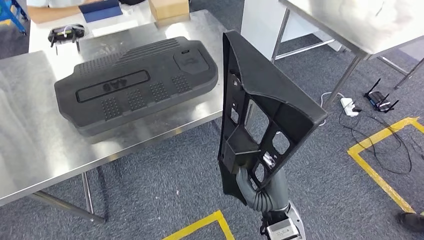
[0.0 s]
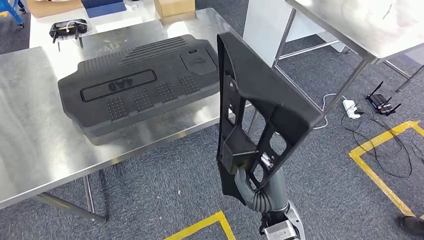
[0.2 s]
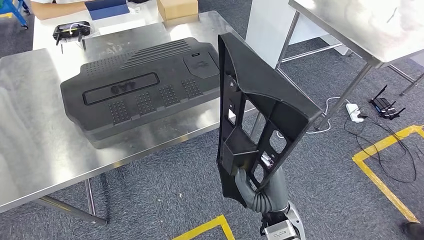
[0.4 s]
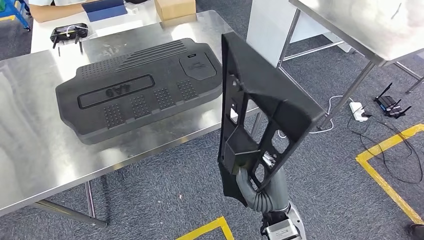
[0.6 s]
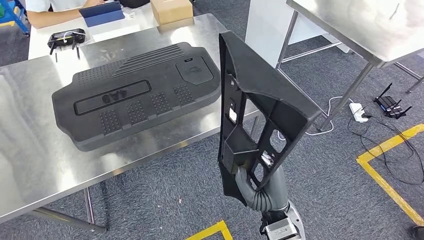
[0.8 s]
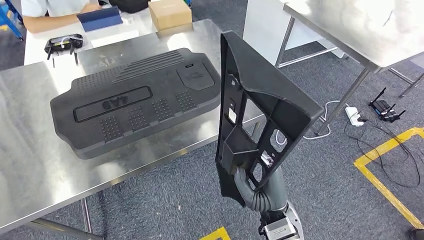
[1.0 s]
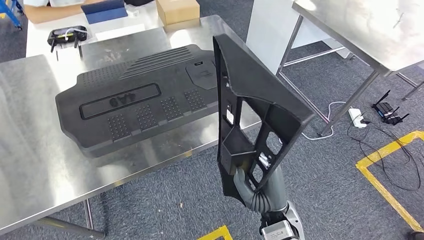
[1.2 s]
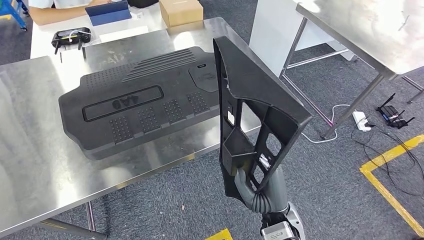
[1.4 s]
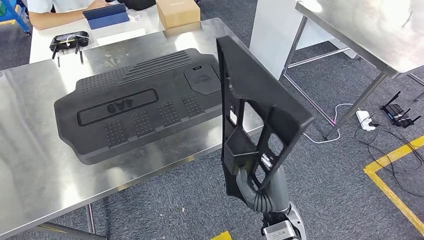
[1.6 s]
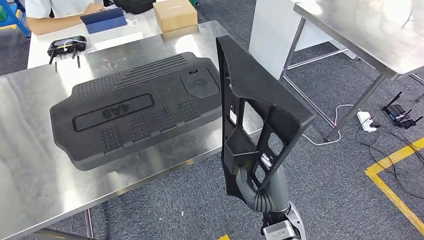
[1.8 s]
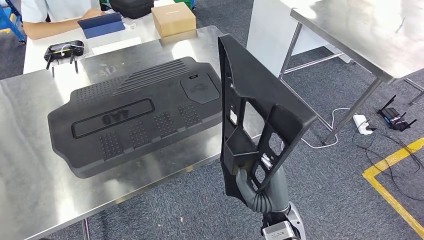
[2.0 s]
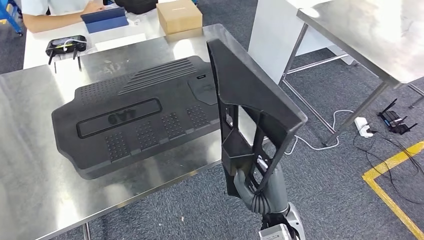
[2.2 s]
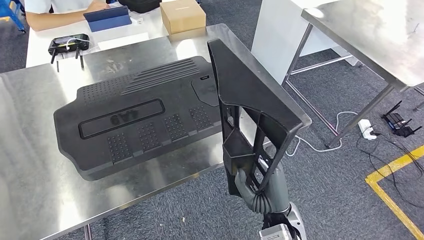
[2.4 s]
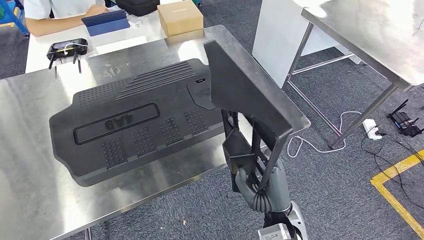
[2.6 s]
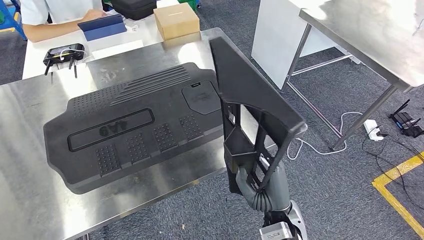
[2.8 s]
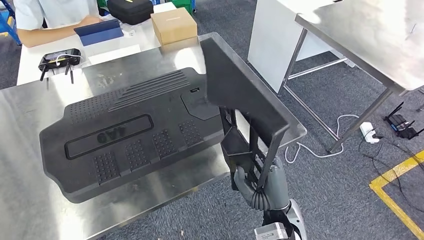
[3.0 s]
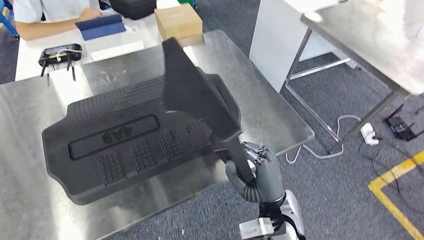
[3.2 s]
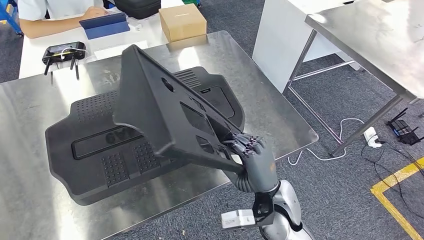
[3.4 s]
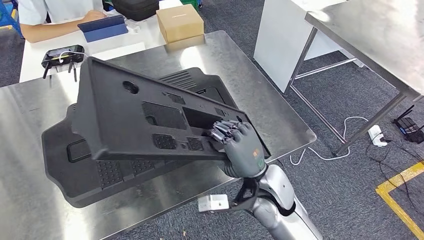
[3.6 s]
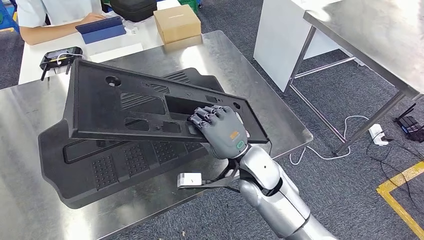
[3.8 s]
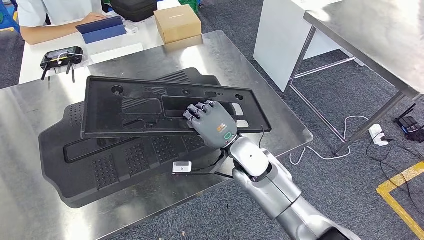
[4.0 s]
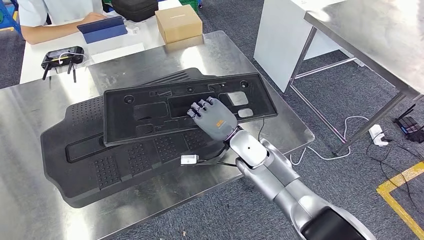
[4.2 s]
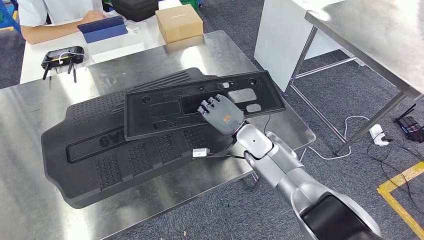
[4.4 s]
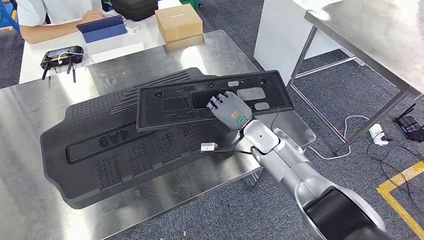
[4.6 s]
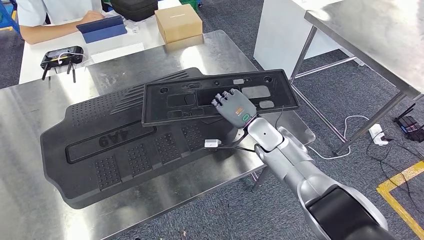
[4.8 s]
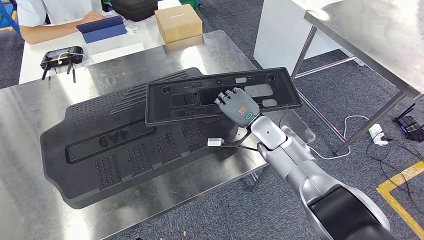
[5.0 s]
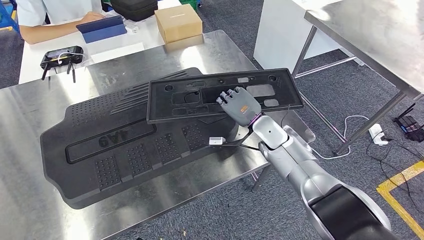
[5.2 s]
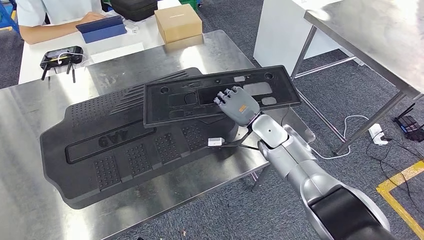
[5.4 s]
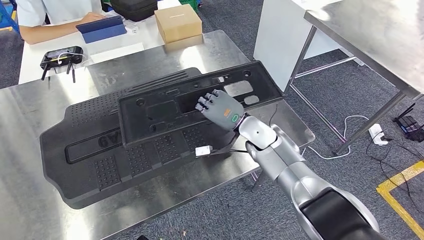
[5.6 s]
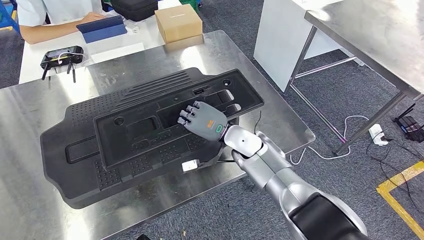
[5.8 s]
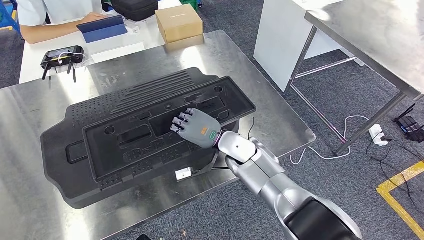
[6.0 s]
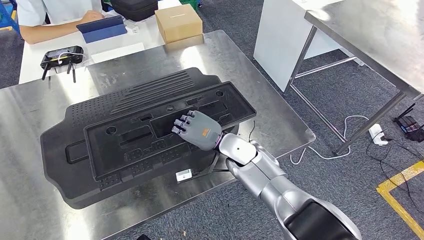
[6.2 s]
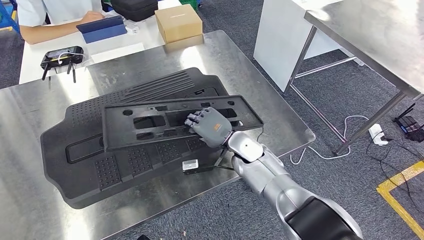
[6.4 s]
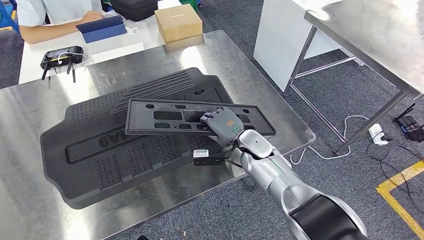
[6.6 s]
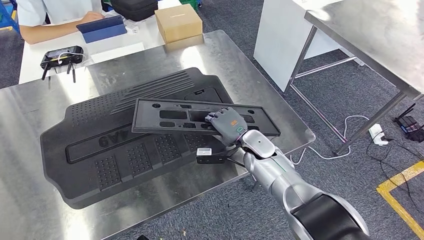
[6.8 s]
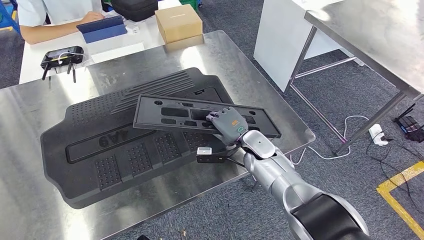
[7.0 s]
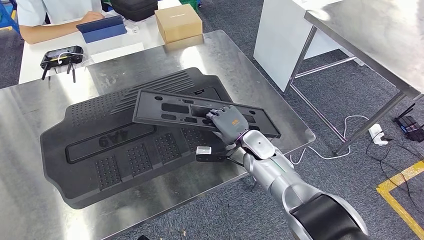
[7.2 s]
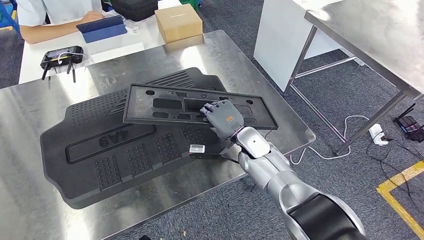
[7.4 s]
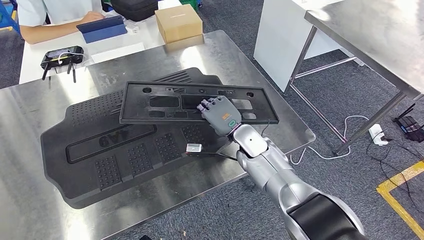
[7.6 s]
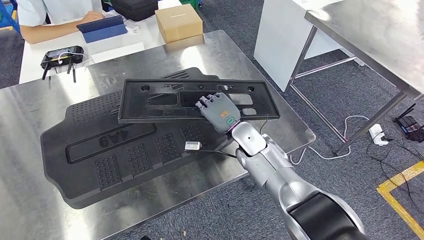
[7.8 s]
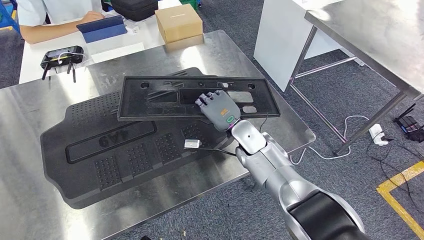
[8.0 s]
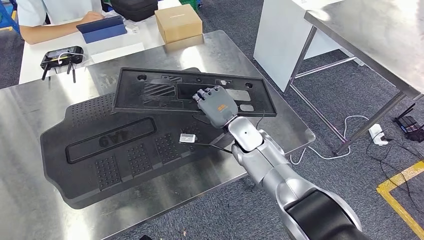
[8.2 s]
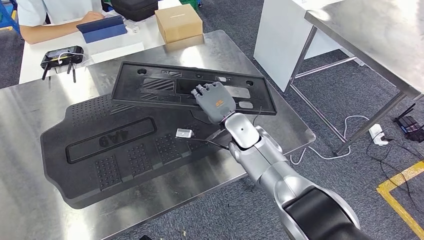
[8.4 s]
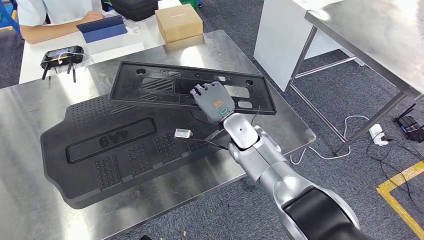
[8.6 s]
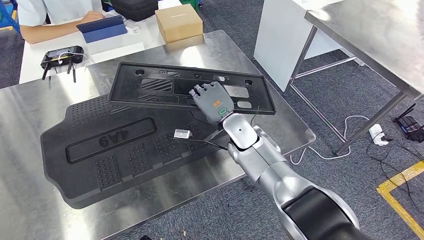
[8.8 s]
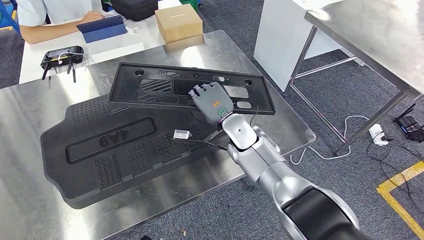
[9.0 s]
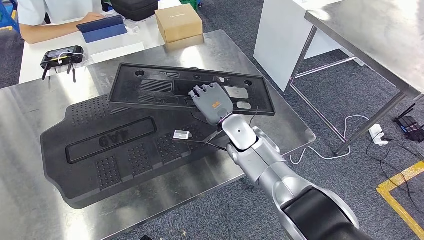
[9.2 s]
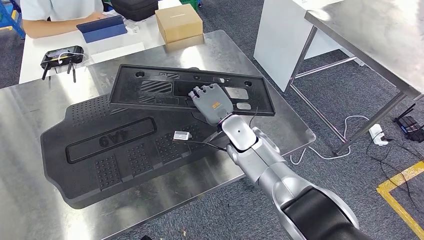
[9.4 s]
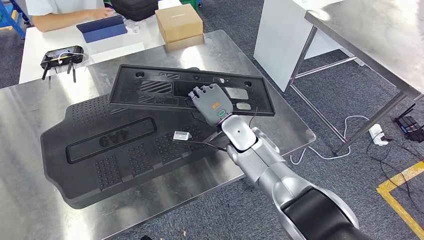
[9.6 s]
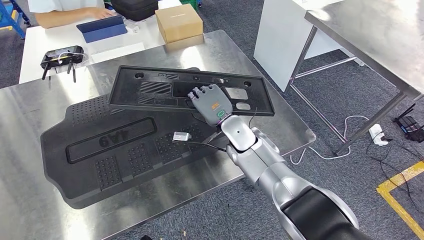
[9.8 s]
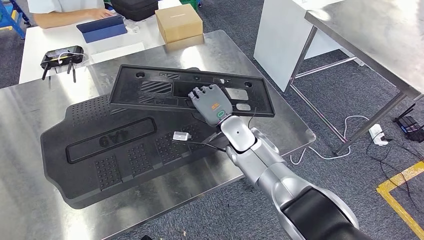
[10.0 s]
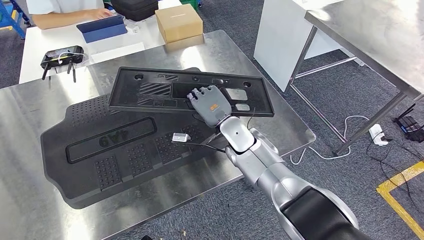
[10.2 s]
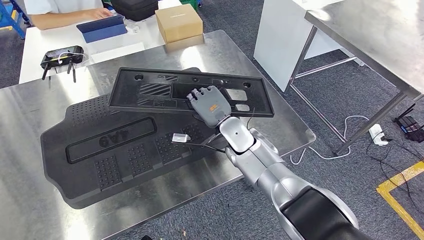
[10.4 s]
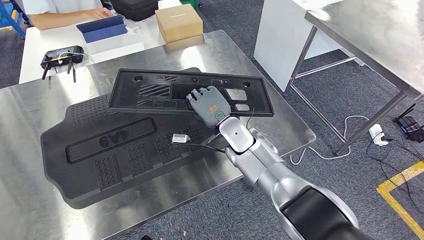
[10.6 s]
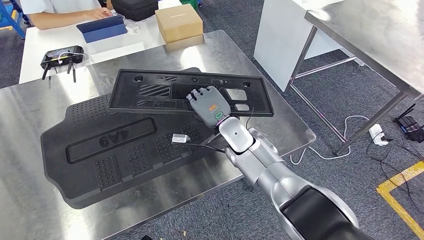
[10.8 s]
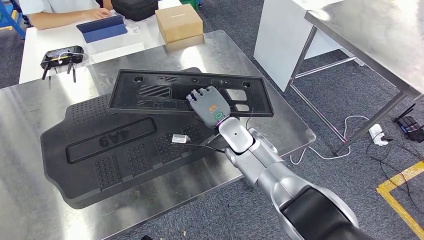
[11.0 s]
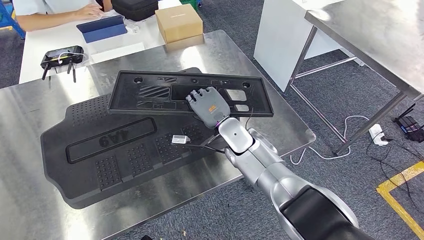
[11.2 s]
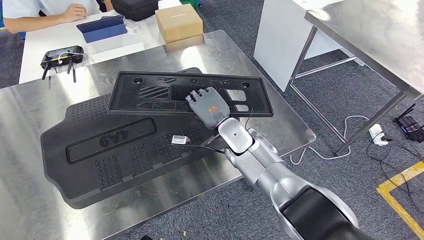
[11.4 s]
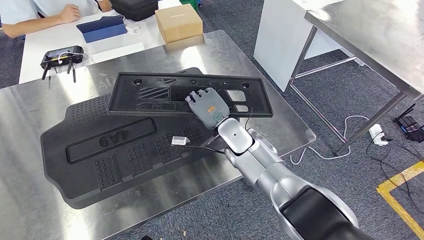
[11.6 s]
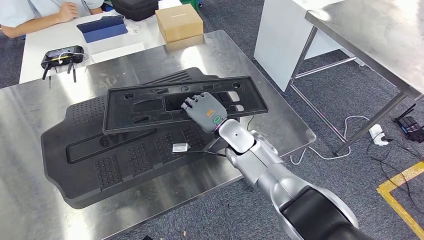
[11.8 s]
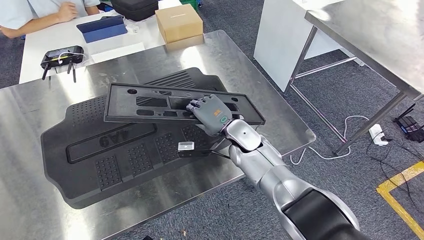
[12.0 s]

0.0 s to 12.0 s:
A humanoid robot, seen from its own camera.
4.4 to 6.0 s: The hands make only small movements.
7.6 to 9.0 s: The hands stay close to where they were, moving slightly.
9.0 to 10.4 s: Neither hand changes place.

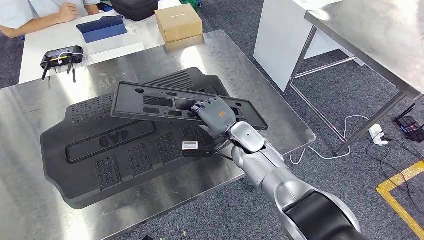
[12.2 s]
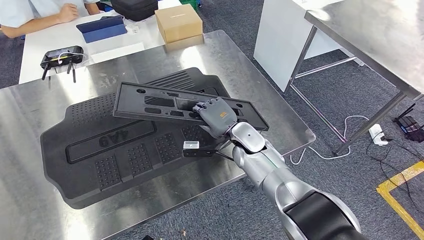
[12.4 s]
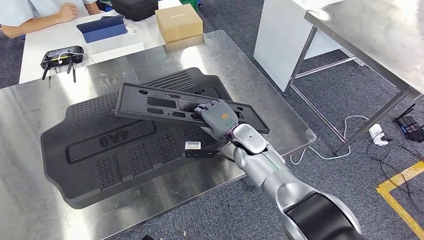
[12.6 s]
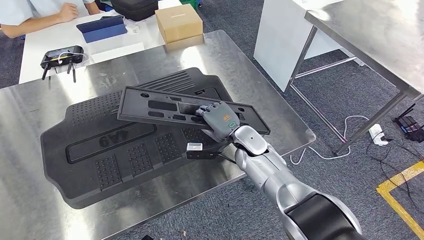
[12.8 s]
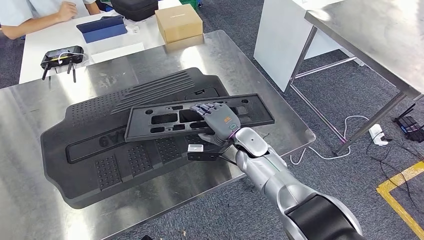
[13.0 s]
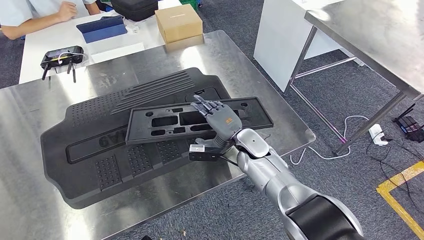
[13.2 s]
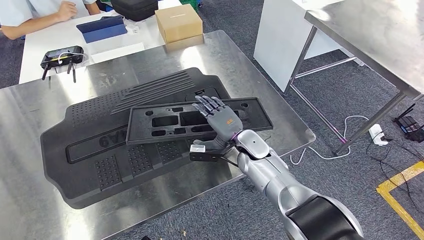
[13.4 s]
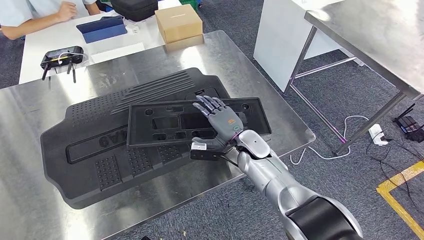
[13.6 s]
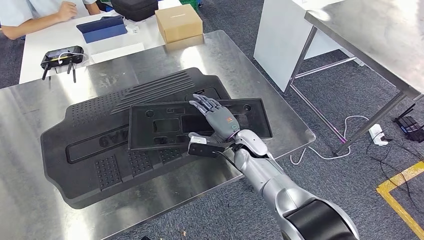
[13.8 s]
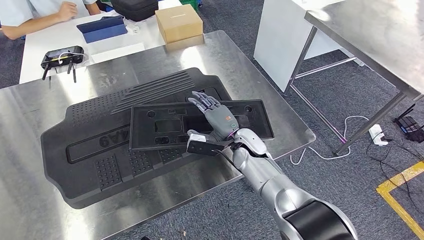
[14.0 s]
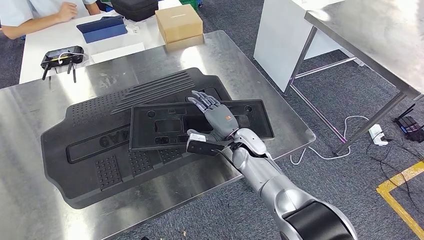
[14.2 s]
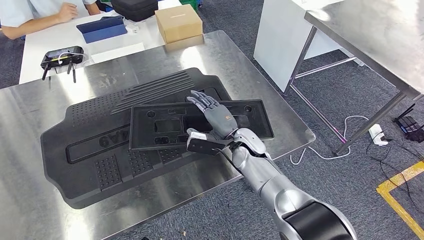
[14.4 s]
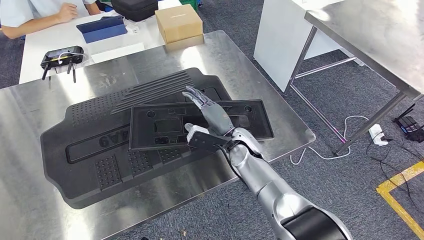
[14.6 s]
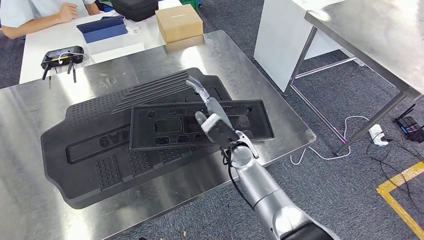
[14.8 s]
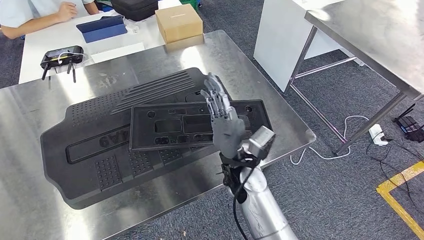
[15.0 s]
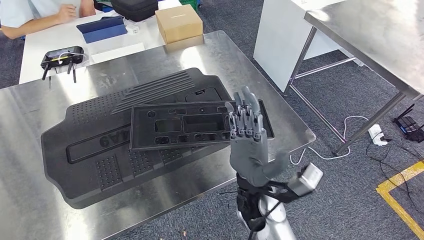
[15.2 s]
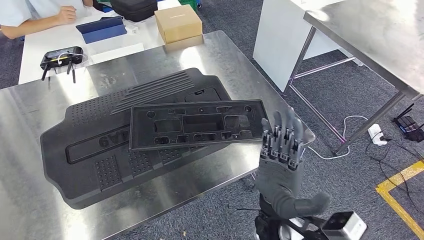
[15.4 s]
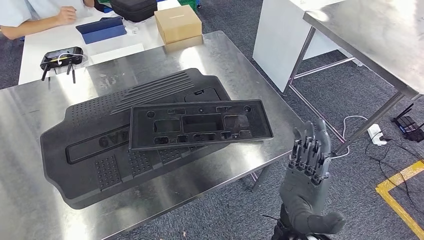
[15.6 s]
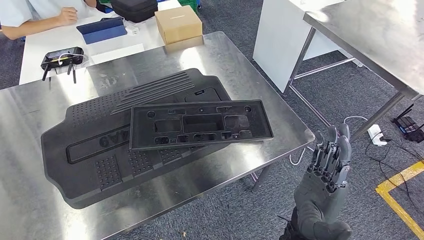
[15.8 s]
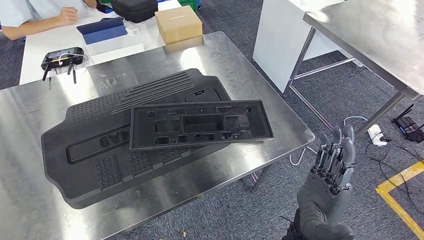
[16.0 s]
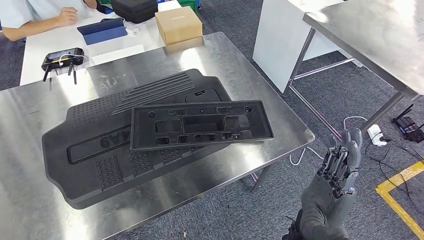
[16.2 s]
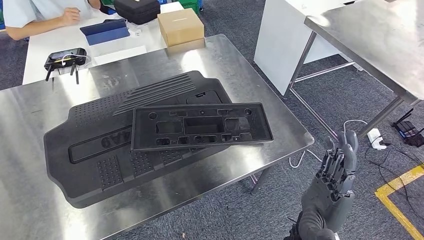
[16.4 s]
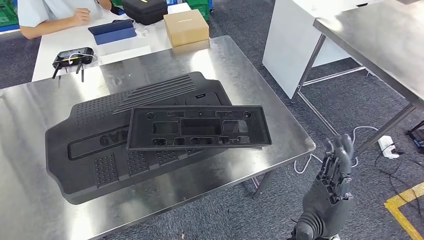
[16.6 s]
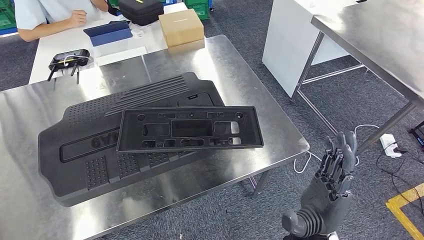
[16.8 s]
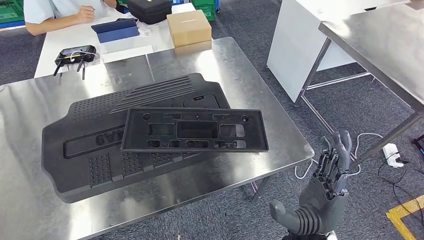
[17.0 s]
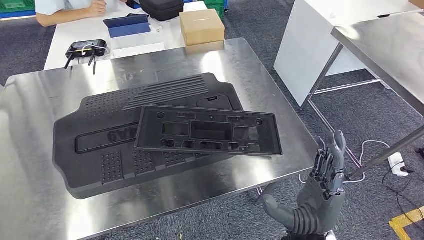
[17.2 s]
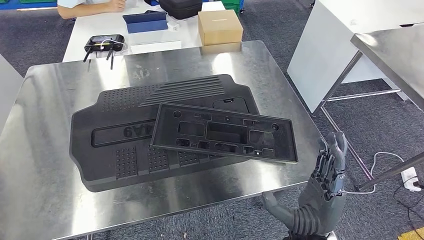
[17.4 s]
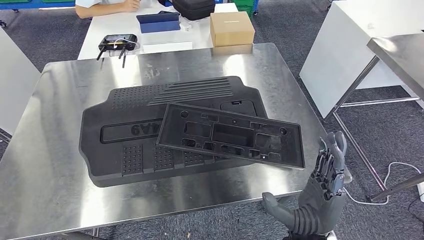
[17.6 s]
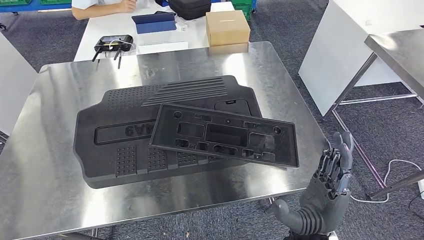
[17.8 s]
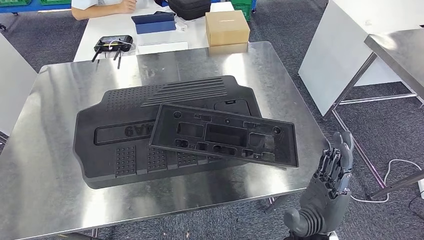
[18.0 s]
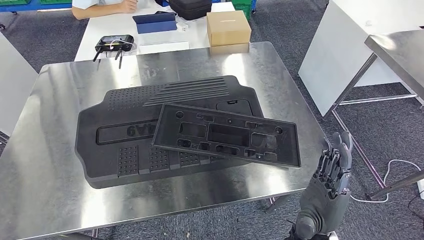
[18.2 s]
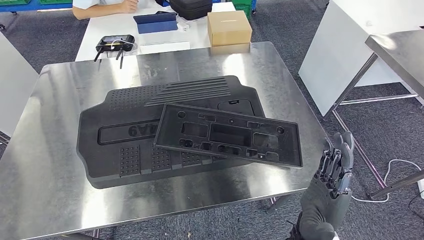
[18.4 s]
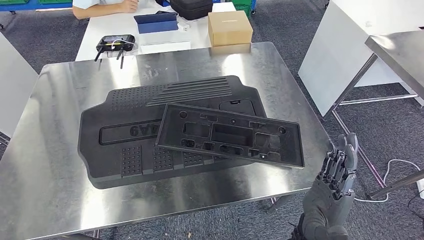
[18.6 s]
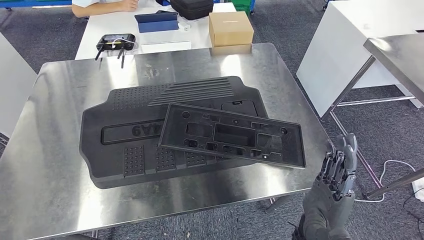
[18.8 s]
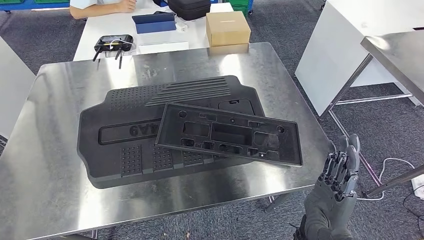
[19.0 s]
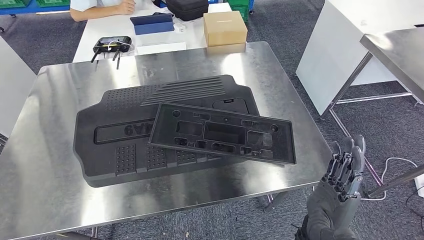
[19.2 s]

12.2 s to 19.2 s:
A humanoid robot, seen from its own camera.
Step, 12.2 to 16.2 s: Insert the large material into the corresponding slot on the workbench.
12.2 to 13.6 s: The hands make only small movements.
13.6 to 15.0 s: The right hand travels backward, upward and to the left by approximately 15 cm.
17.8 to 19.2 s: Both hands stay about where they are.
